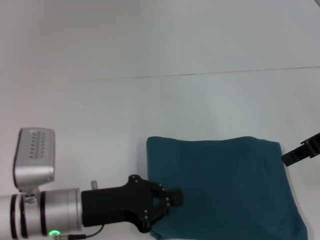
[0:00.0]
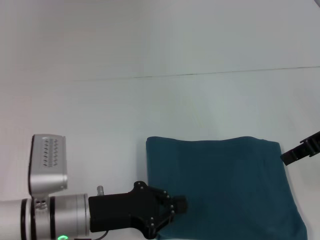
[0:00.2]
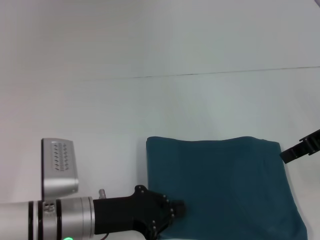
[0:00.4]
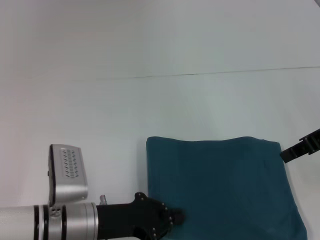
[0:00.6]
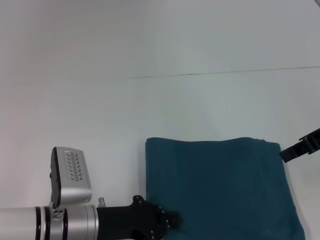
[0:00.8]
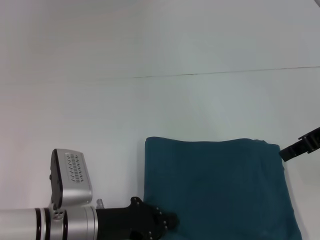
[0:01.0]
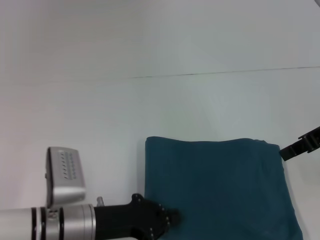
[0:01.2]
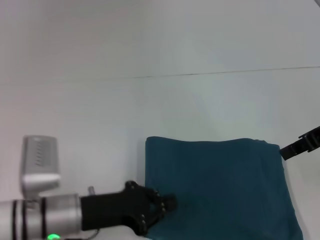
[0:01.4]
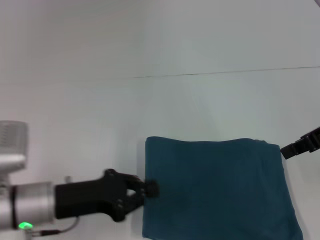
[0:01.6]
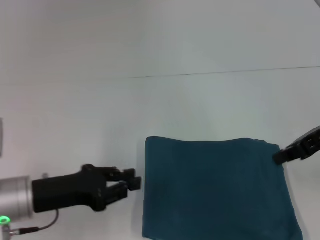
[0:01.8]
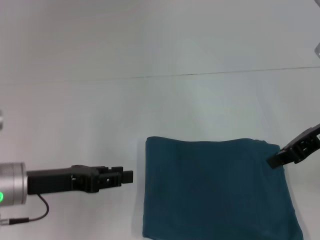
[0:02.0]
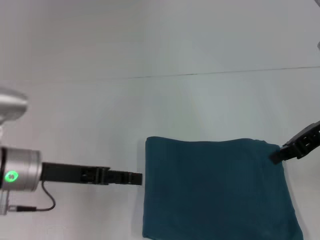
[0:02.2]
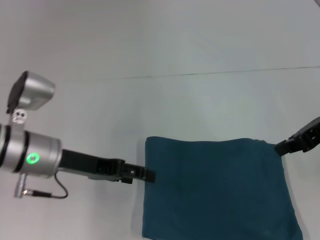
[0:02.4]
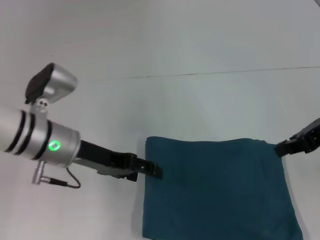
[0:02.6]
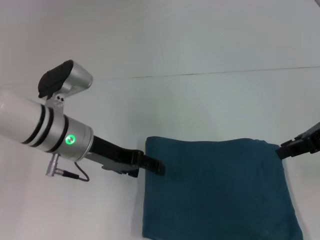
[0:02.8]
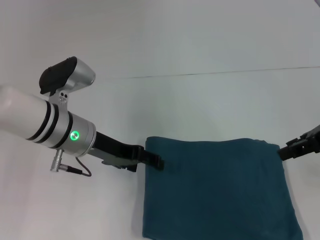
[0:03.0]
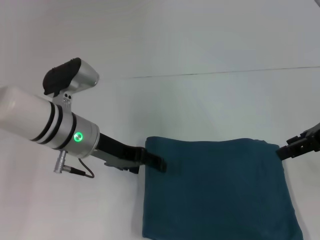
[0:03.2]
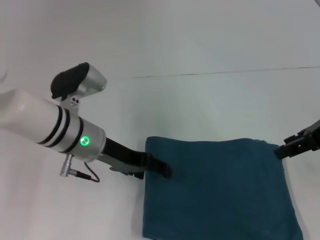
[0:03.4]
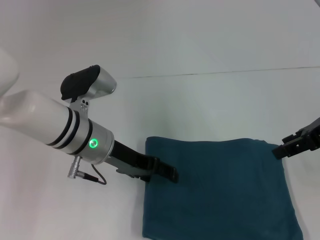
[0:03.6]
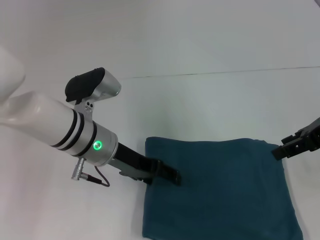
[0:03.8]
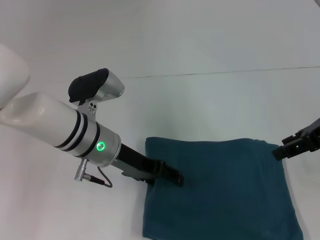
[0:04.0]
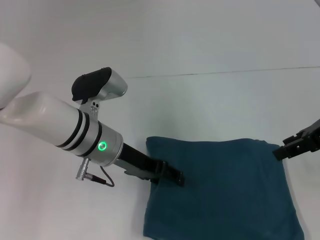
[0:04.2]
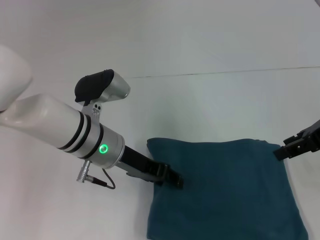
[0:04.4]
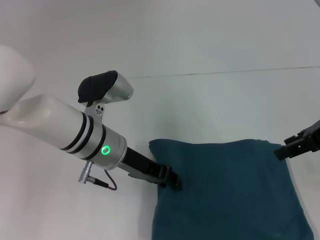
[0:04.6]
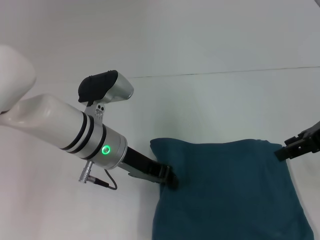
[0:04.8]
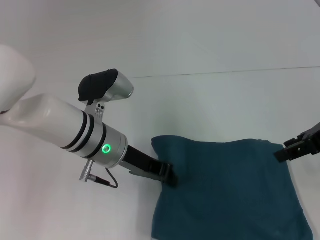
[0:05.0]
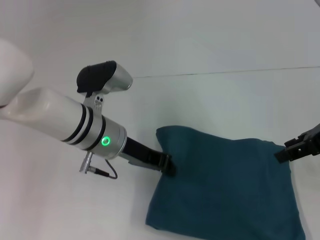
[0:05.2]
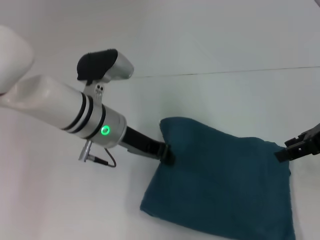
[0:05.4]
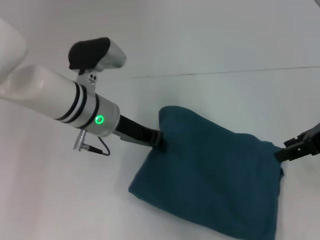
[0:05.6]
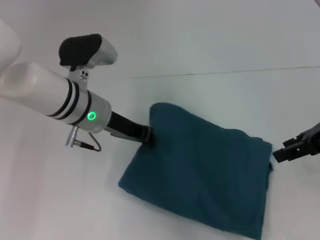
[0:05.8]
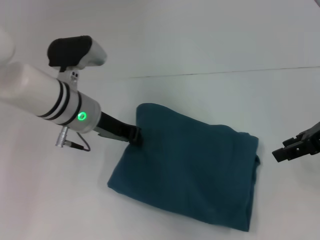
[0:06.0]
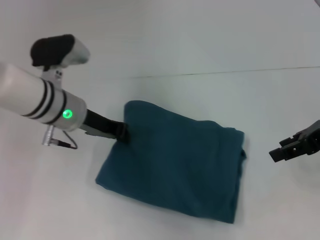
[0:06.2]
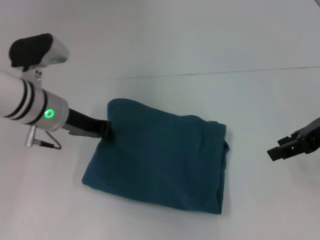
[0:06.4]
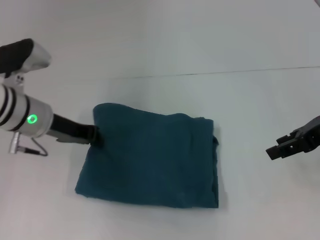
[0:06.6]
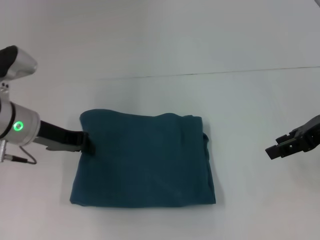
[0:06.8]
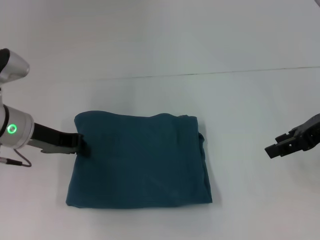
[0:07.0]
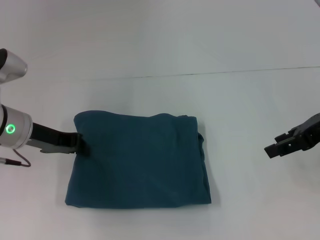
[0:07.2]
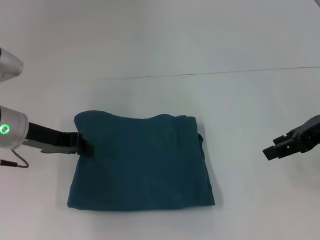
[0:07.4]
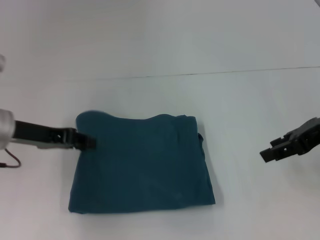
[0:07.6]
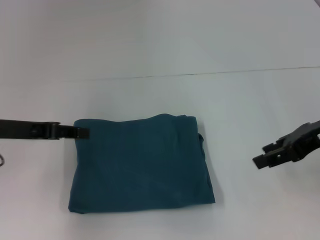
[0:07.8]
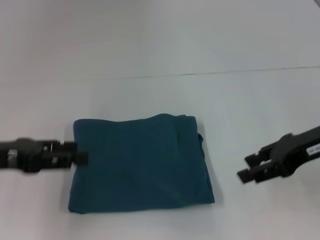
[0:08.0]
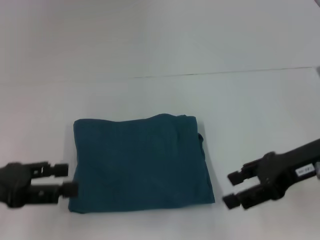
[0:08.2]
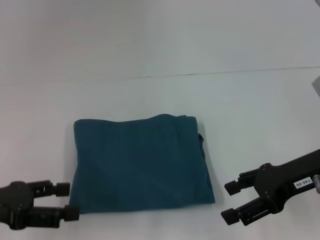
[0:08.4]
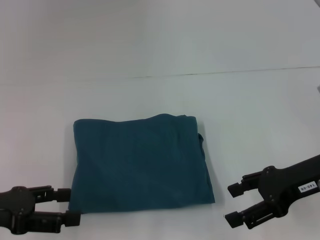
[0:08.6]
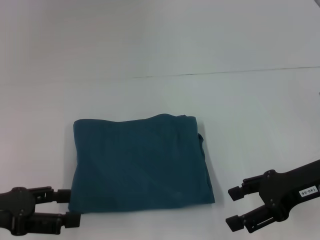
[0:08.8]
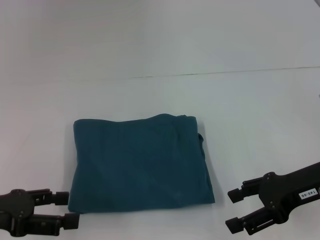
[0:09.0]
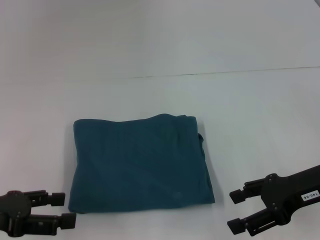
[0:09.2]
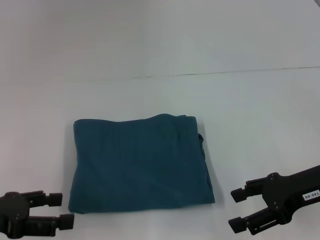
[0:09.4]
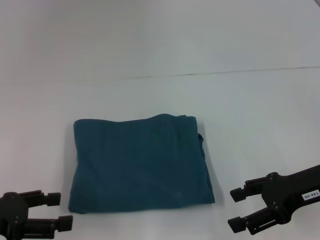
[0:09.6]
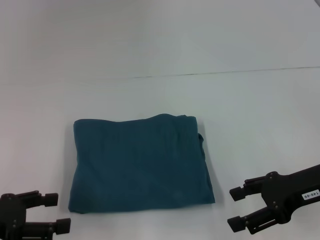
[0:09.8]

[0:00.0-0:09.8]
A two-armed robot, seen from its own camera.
0:00.0 to 0:01.4: There are only small adjustments of the grippers.
0:01.4 to 0:02.8: The left gripper goes about 15 cm forward and upward, and opens up.
0:02.8 to 0:04.2: The right gripper opens its fingers.
0:04.2 to 0:05.6: The left gripper closes its fingers.
0:05.6 to 0:07.0: The left gripper shifts about 10 cm to the left.
0:07.0 to 0:08.4: The right gripper goes about 5 cm downward; the left gripper goes approximately 15 cm backward and to the left, and opens its fingers.
0:08.4 to 0:09.8: There are only small adjustments of the grippers.

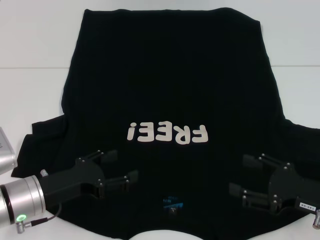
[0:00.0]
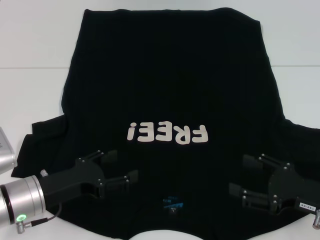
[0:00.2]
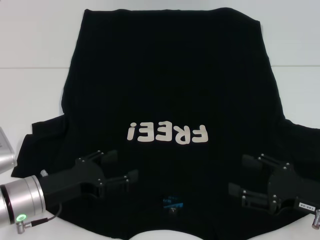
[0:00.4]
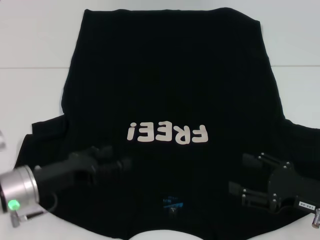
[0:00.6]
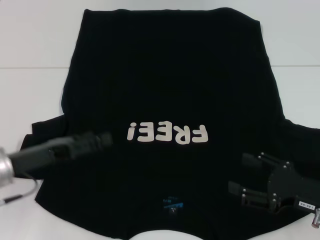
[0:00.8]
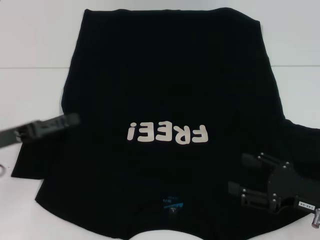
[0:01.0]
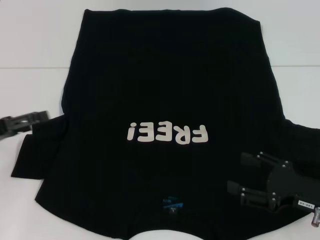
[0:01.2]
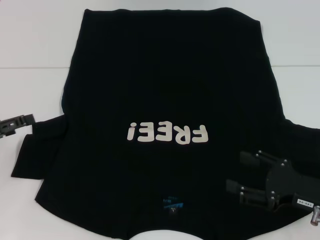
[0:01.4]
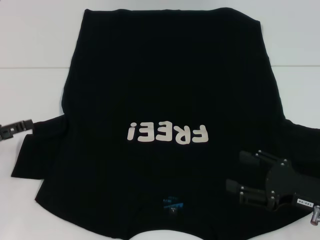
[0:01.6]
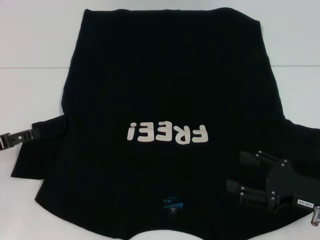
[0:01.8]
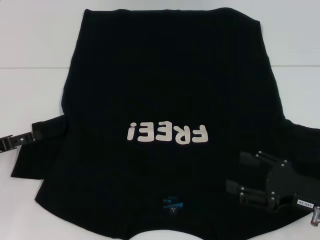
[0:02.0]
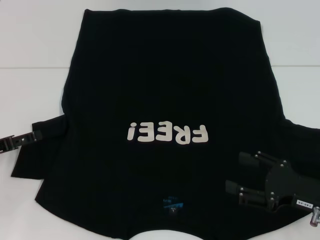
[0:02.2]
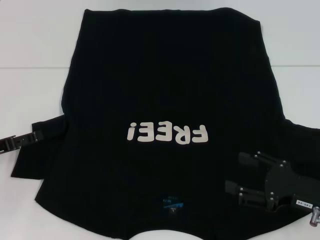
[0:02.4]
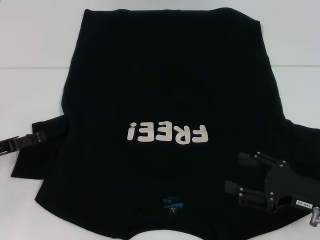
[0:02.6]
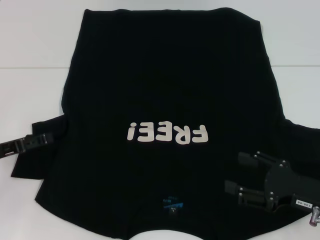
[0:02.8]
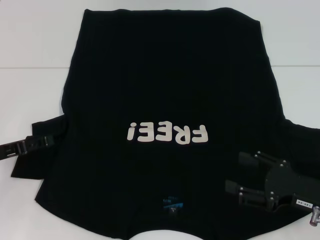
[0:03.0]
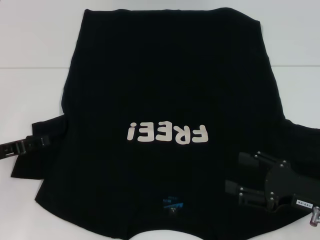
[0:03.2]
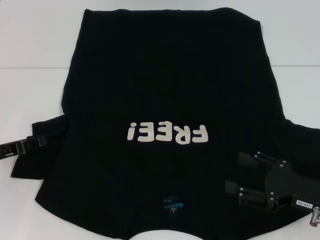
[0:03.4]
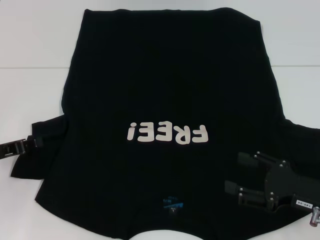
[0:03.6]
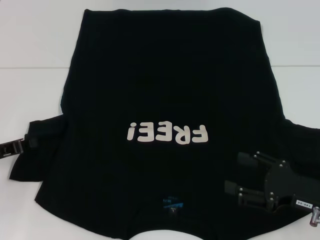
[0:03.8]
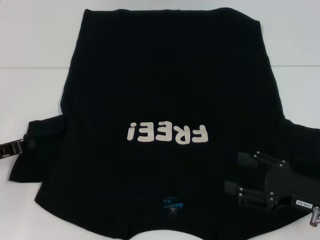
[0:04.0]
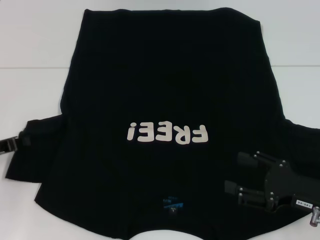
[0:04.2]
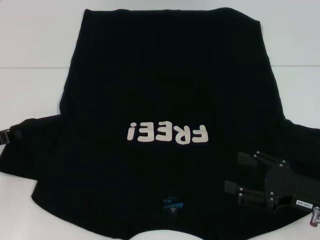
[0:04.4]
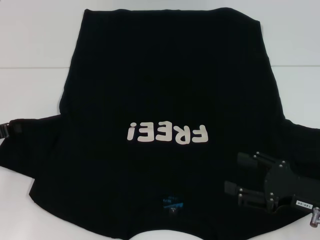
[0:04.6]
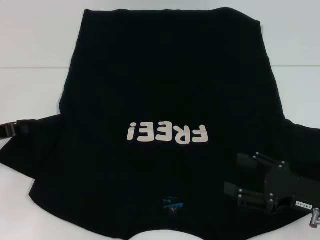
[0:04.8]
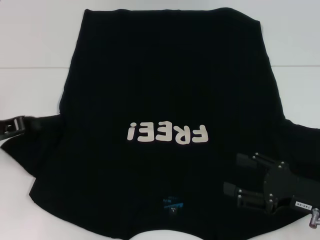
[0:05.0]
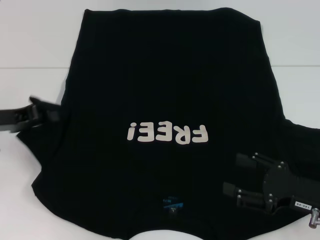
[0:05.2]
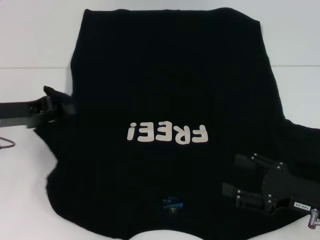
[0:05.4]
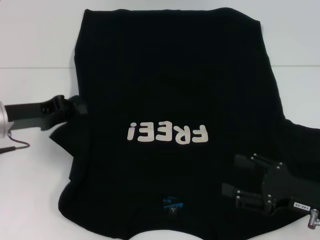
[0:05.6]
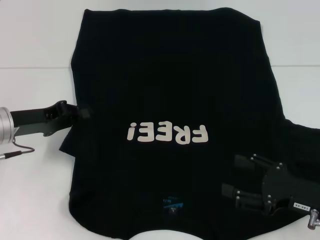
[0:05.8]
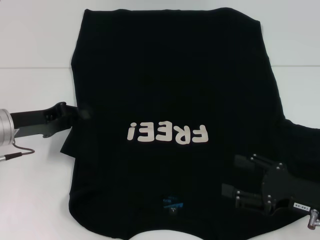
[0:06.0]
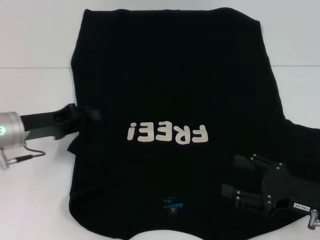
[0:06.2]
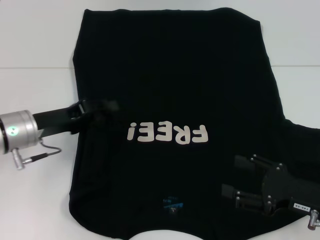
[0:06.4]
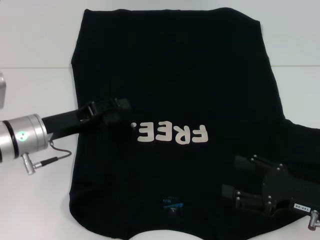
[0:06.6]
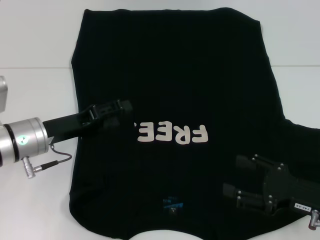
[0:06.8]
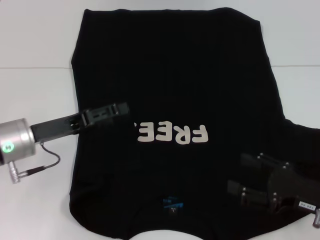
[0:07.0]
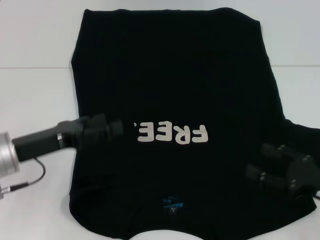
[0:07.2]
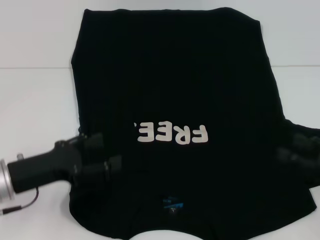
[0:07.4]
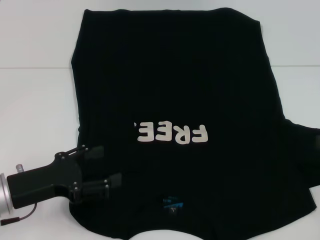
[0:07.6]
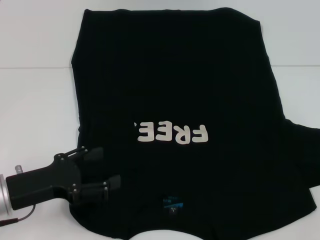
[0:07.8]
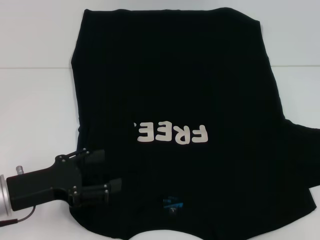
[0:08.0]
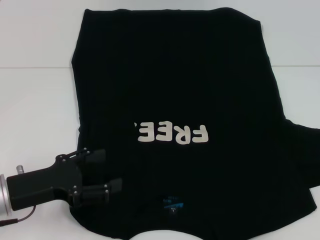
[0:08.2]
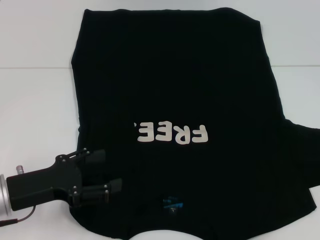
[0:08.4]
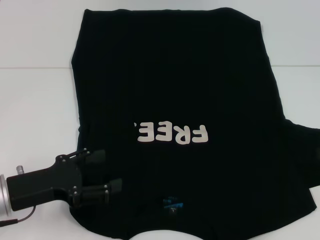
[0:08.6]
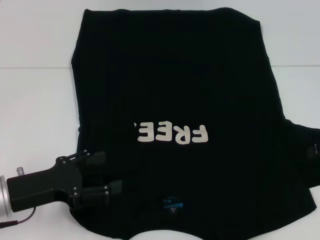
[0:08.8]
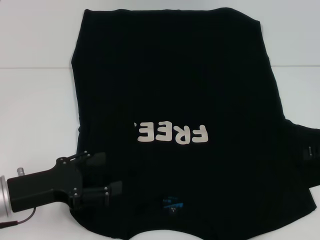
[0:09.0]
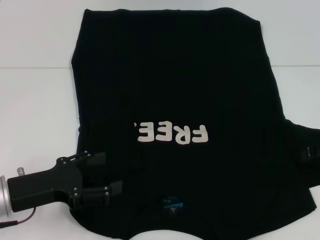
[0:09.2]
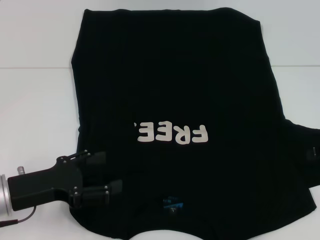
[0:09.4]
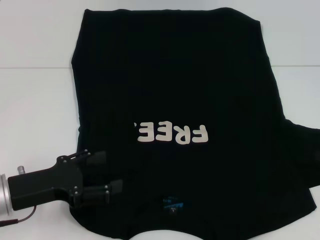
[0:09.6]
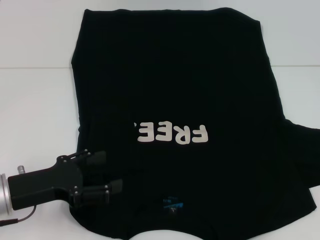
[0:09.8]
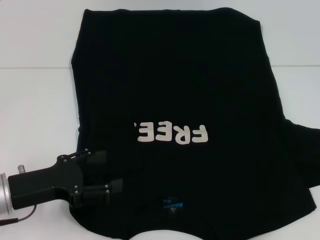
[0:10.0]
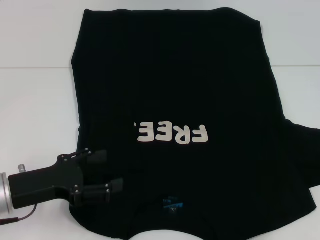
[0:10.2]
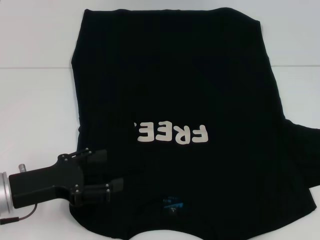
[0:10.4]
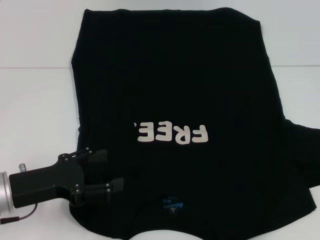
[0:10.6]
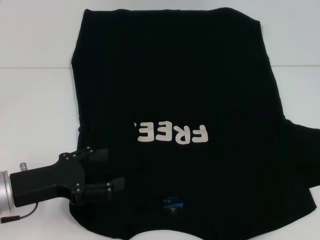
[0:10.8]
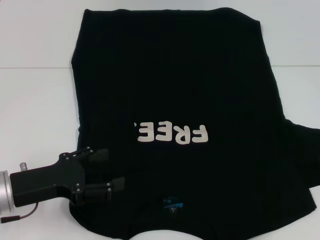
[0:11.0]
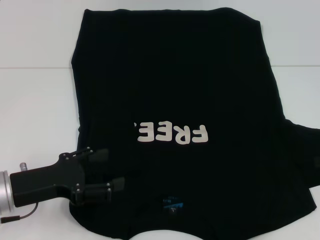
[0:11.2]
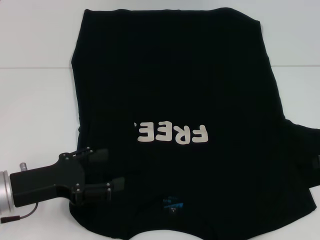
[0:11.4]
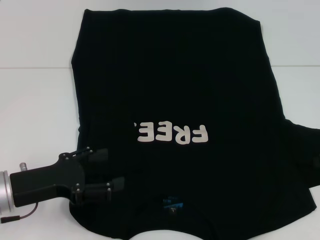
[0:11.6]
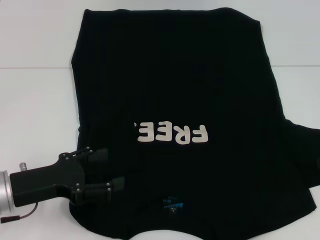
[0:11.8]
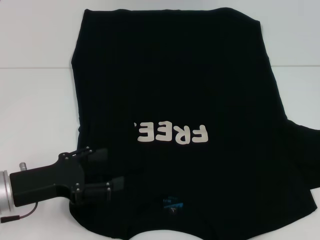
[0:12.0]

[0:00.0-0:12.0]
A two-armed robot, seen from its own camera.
Step, 0:00.0 to 0:07.4: Fold the bottom left sleeve with your left hand.
0:00.0 to 0:01.6: The left gripper heads to the left, covering some 15 cm.
0:01.6 to 0:03.0: The grippers make only small movements.
0:03.0 to 0:04.4: The left gripper closes.
0:04.4 to 0:06.0: The left gripper shifts roughly 10 cm to the right.
0:06.0 to 0:07.6: The left gripper goes approximately 10 cm backward, and opens its fingers, while the right gripper is displaced to the right and upward by roughly 15 cm.
0:10.4 to 0:12.0: There are only small adjustments of the grippers.
